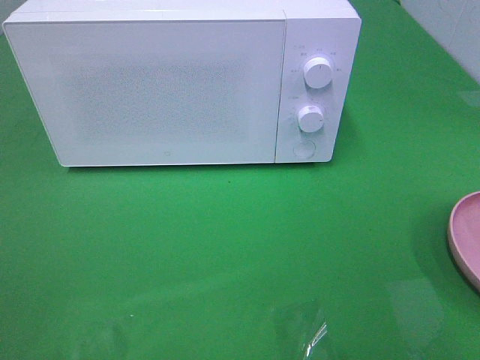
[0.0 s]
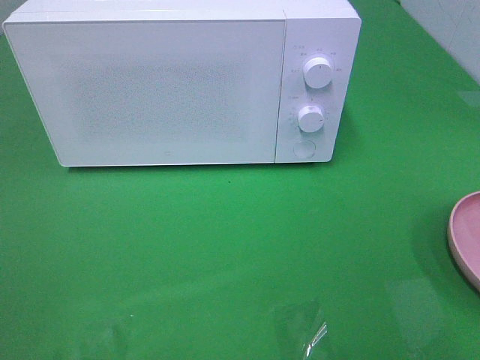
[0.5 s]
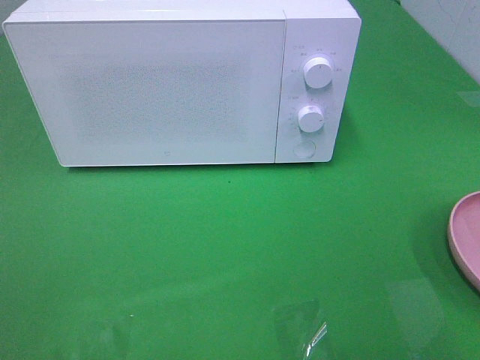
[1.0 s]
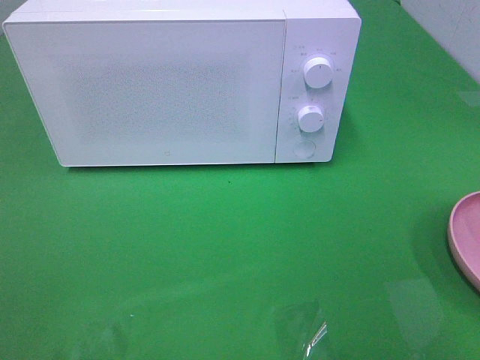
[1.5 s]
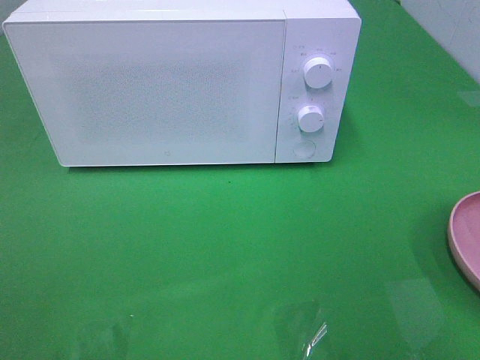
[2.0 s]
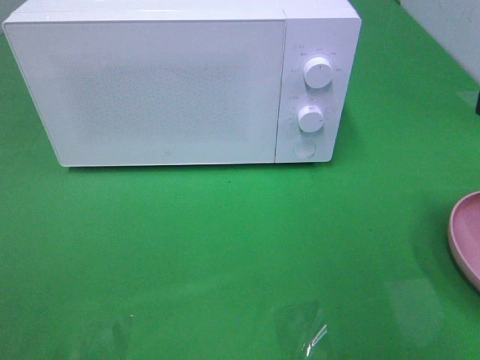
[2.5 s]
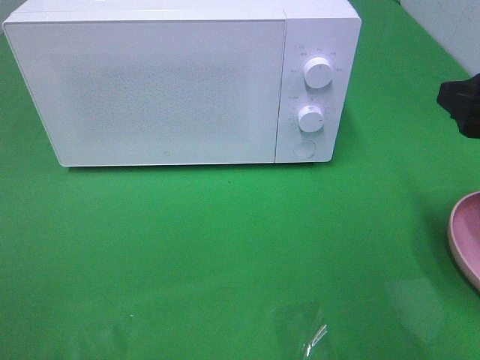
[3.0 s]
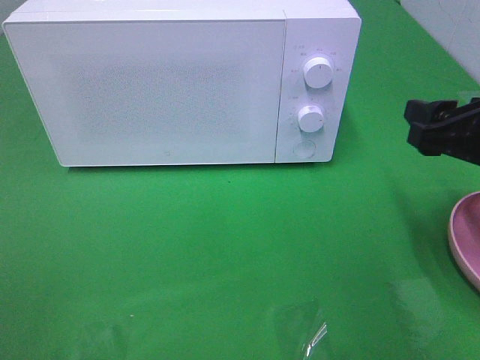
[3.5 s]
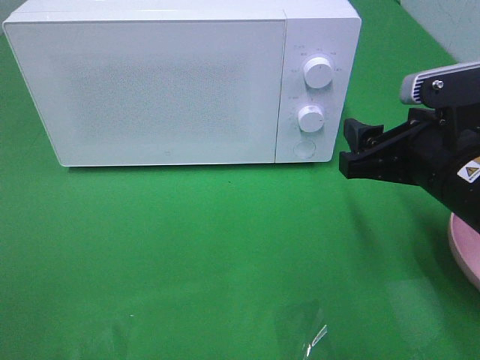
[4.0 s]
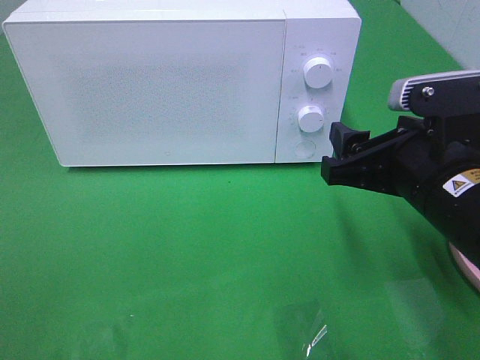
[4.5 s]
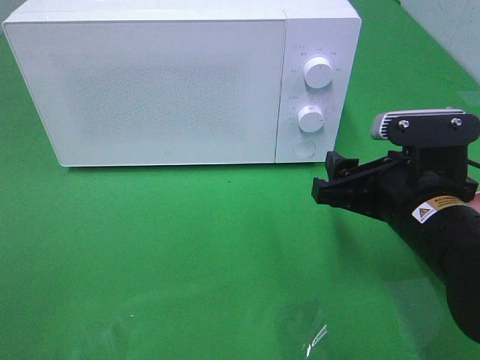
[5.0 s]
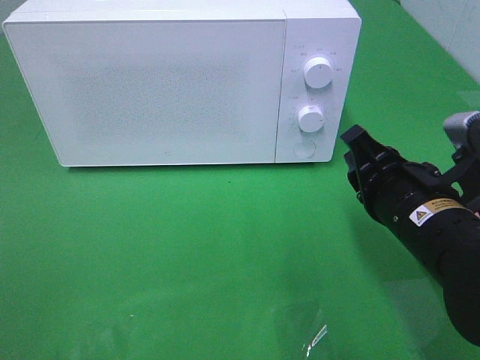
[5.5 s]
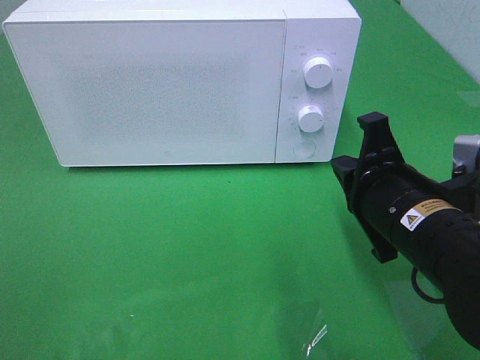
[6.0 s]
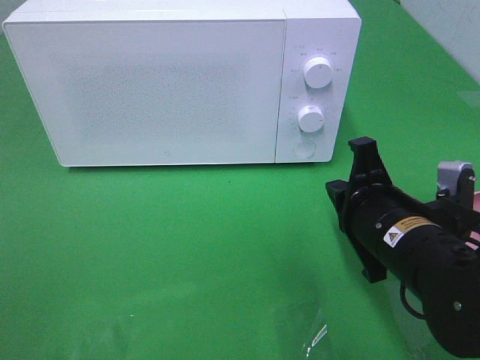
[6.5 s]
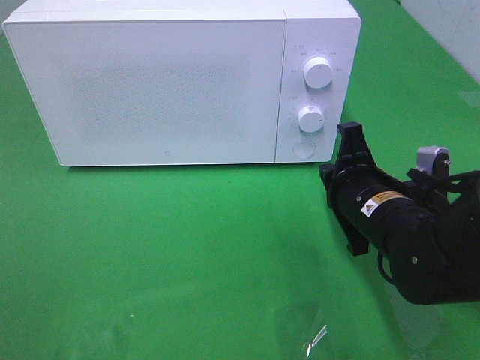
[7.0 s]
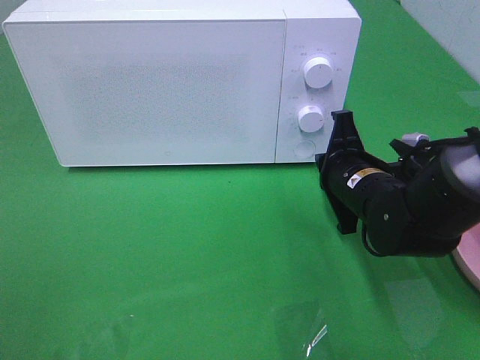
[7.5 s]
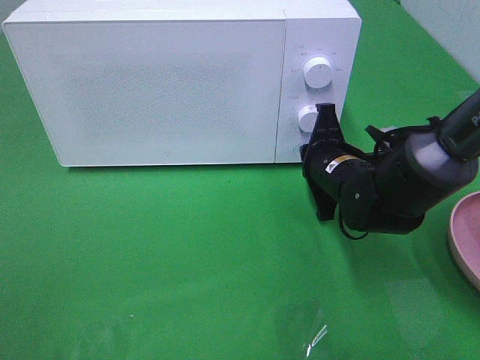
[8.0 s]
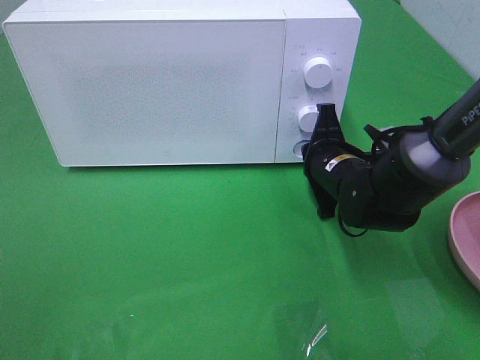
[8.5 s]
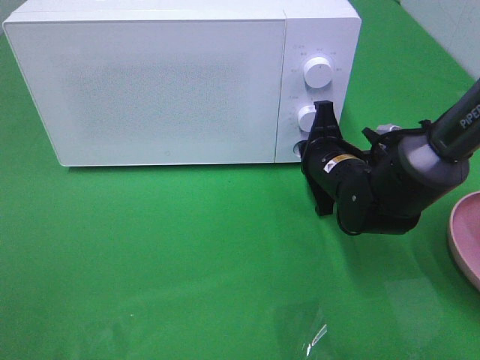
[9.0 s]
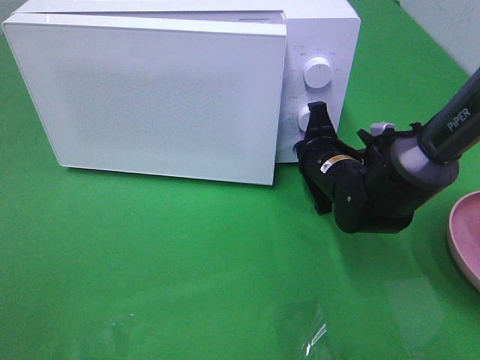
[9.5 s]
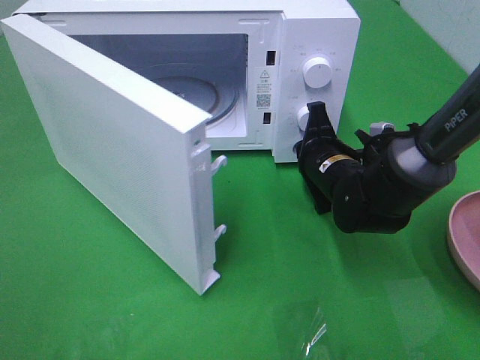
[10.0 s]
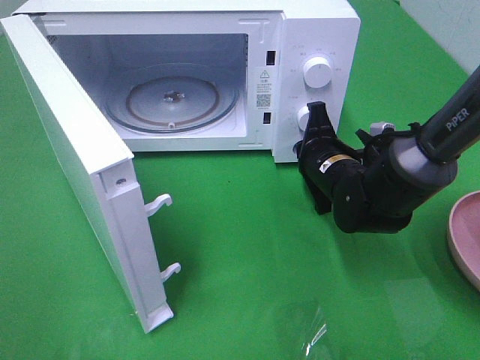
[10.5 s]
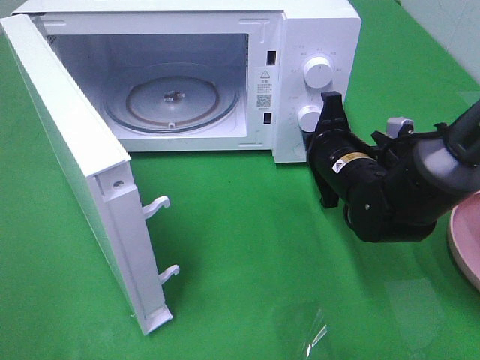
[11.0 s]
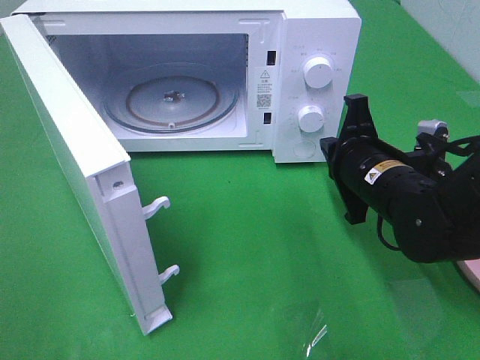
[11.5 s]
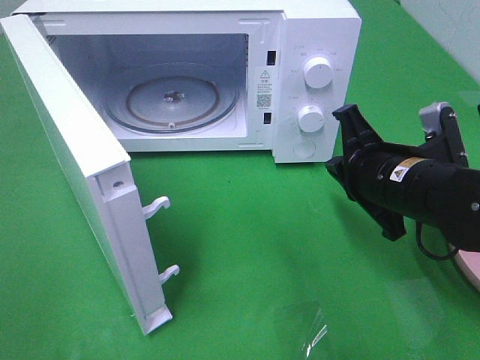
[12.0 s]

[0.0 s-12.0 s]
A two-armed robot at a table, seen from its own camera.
Task of the whole recording: Heat the burger.
Step, 0.0 to 11.0 s: Right hand: press the switch.
2.0 to 4.0 s: The right gripper heads downward, forward and to the left, covering approximately 20 cm.
4.0 to 6.0 s: The right gripper changes place by approximately 5 cm, and closes its fingers.
6.0 to 8.0 s: The right gripper goes some 15 cm forward and downward.
10.0 to 12.0 s: The right gripper goes some 10 cm backward and upward.

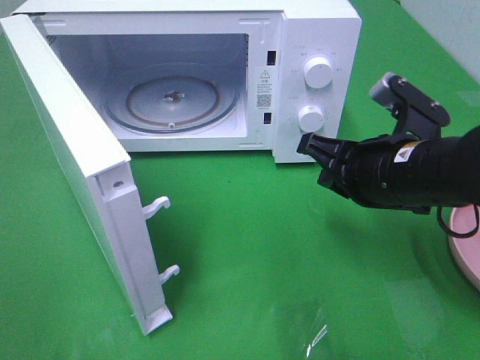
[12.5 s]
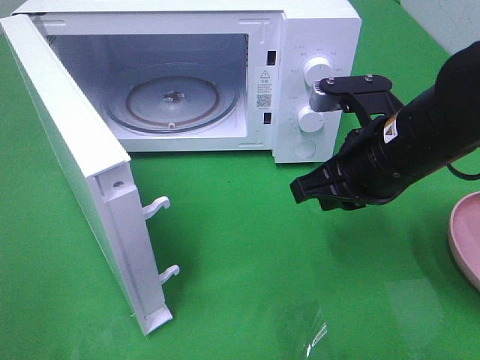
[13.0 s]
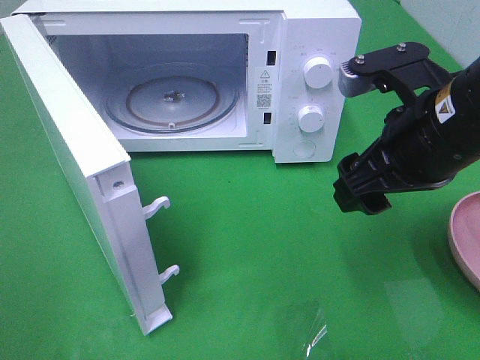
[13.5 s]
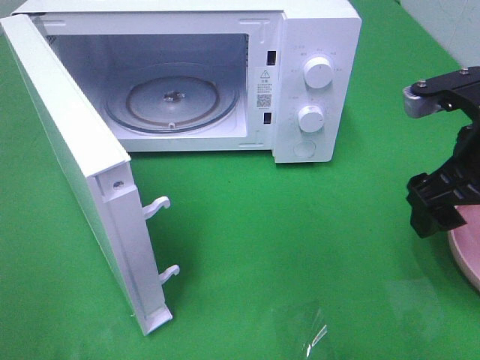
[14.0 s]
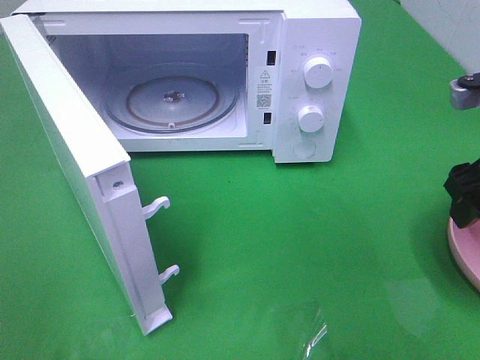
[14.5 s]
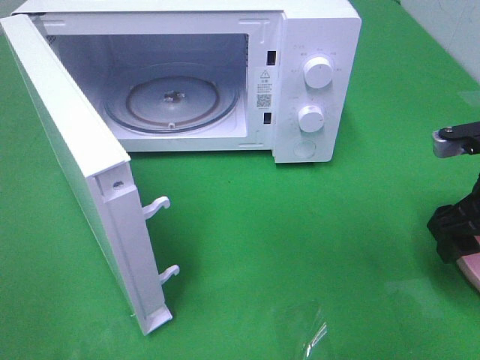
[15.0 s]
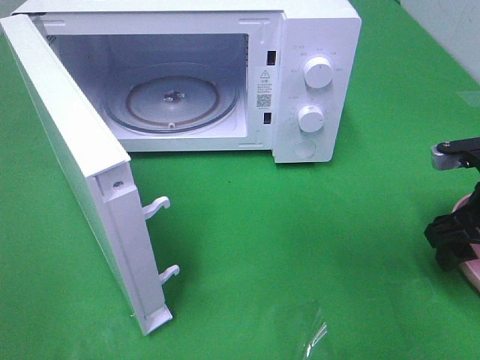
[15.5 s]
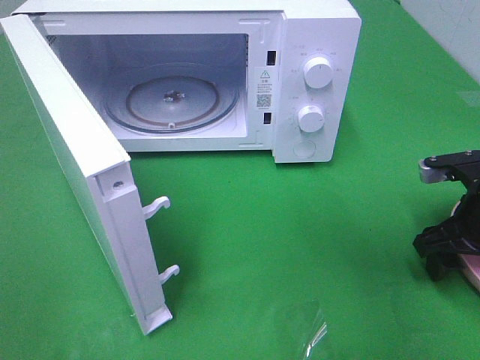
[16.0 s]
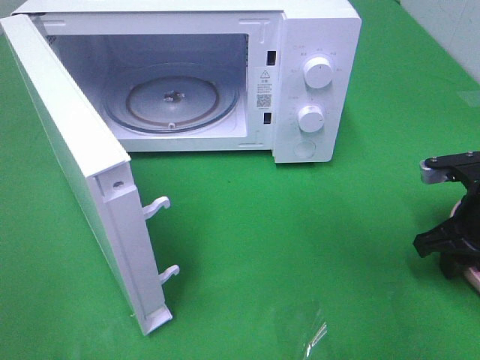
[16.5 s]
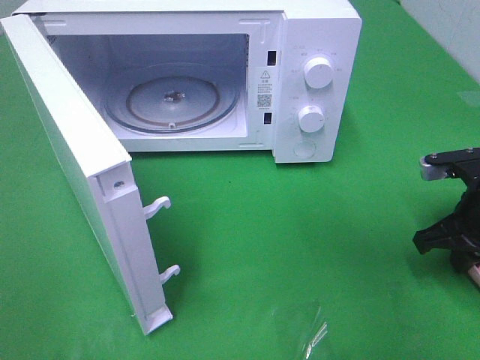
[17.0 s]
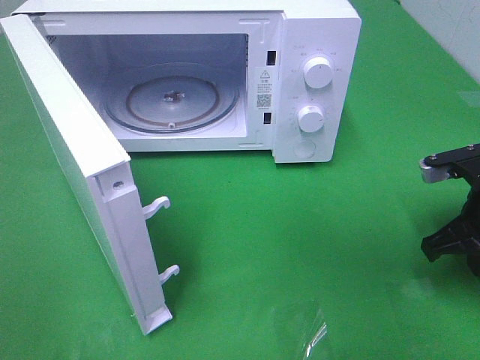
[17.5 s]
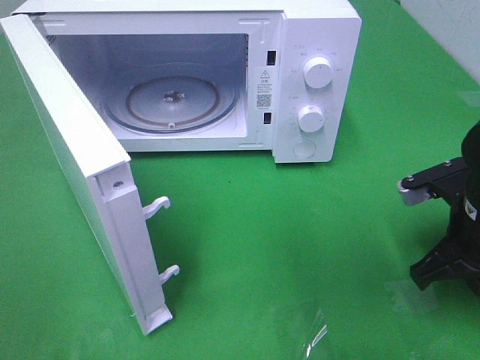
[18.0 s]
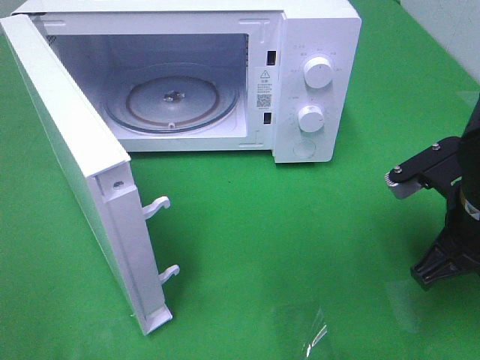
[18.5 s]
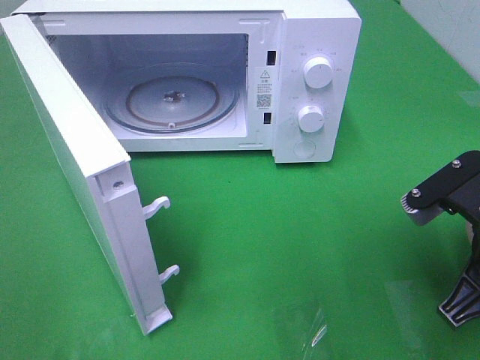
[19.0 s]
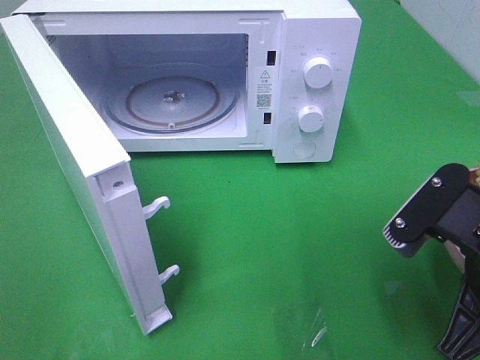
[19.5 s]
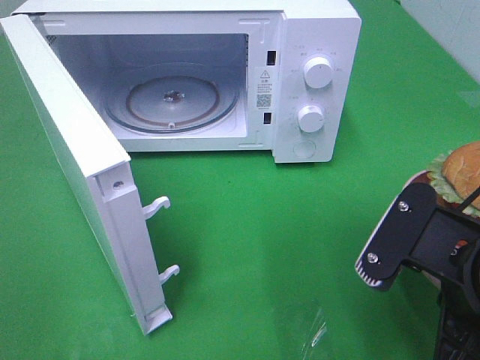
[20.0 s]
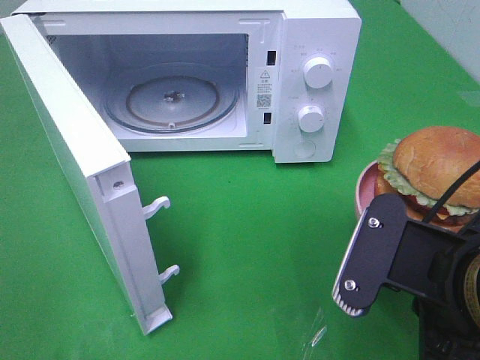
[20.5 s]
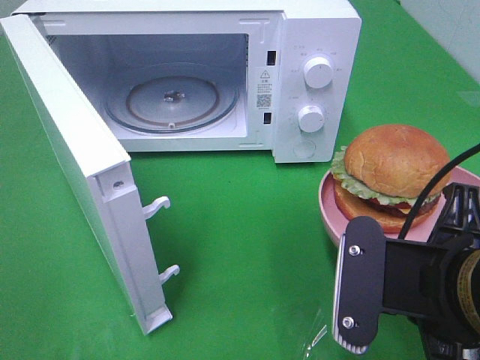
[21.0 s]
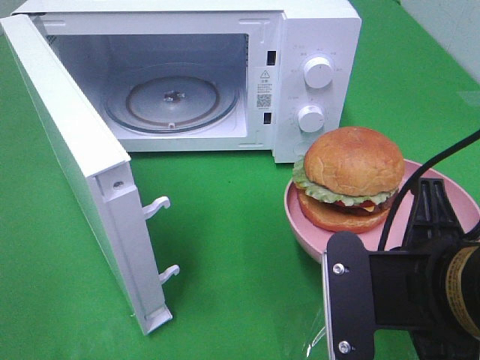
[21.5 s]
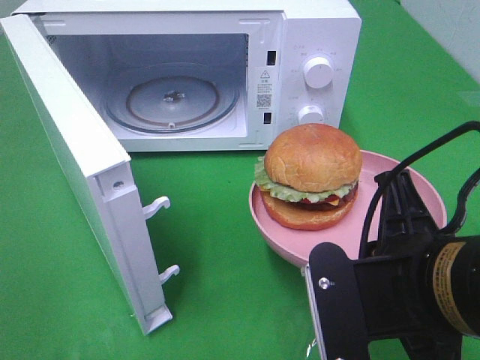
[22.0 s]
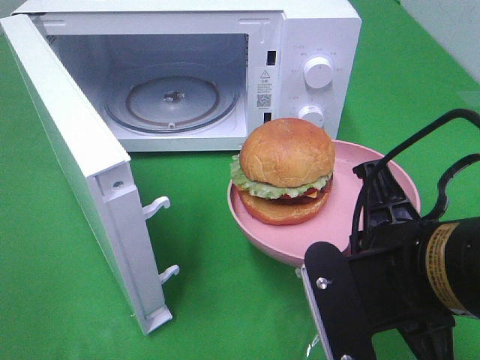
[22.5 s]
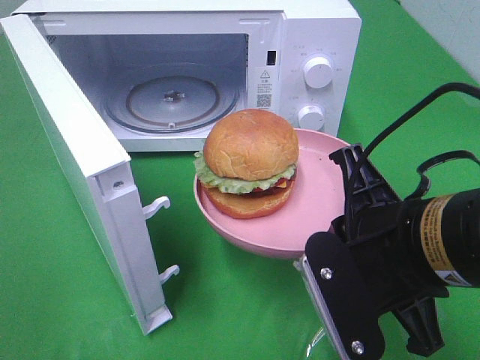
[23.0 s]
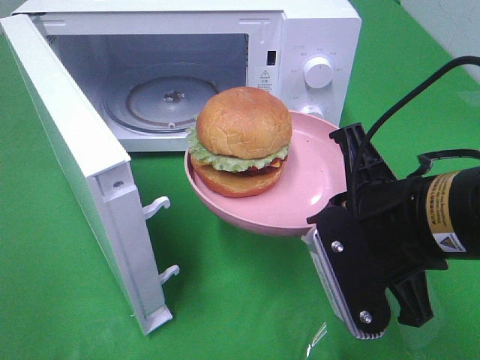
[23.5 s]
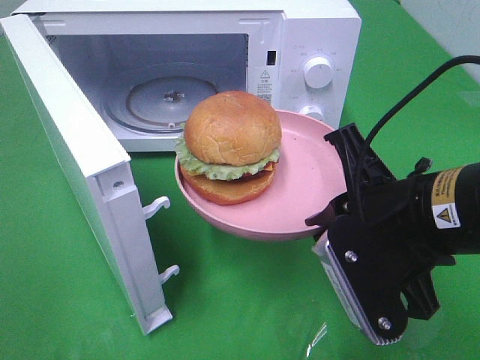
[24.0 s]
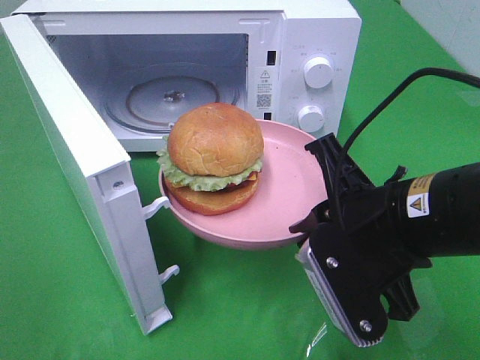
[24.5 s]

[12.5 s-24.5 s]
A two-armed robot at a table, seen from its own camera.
Task of the whole recording: Heat the burger.
Step, 12.5 to 17.5 s: Right hand: grab the plate with the hamburger.
12.5 to 14.5 s: The right gripper goes roughly 10 cm to the right and upward, and opens its fingers.
14.5 to 16.5 s: The right gripper goes some 10 cm downward, and closes up.
16.5 to 18.5 s: The right gripper is displaced to the left, upward and backward by approximately 10 cm, and closes.
18.5 to 20.5 s: The right gripper shifts some 10 cm backward and to the left.
22.5 to 24.5 s: The right gripper shifts approximately 5 cm forward.

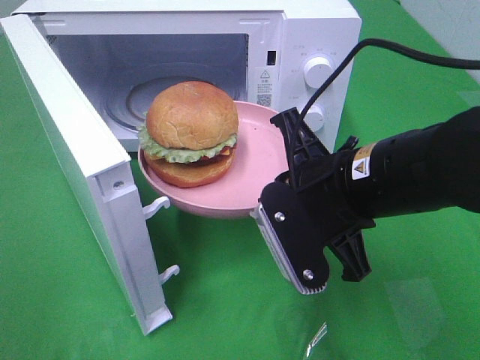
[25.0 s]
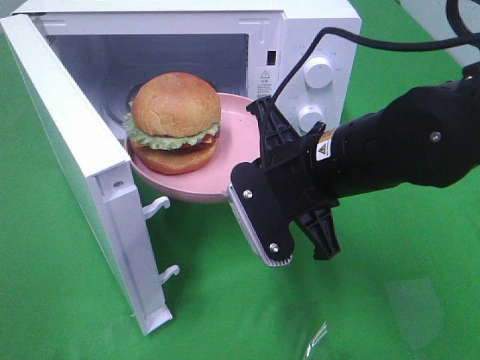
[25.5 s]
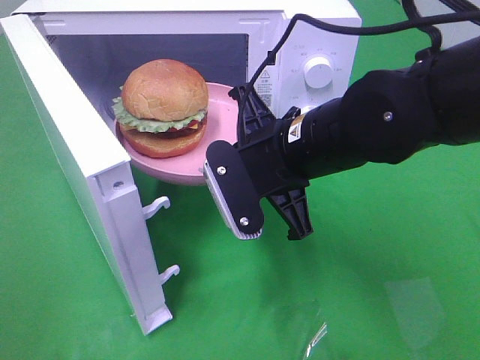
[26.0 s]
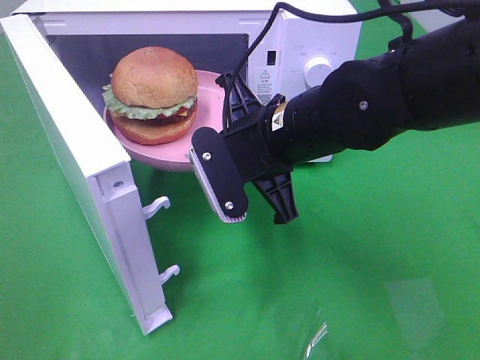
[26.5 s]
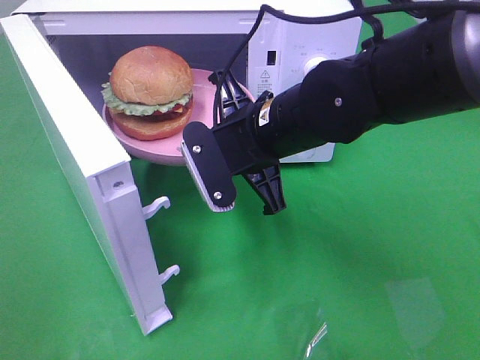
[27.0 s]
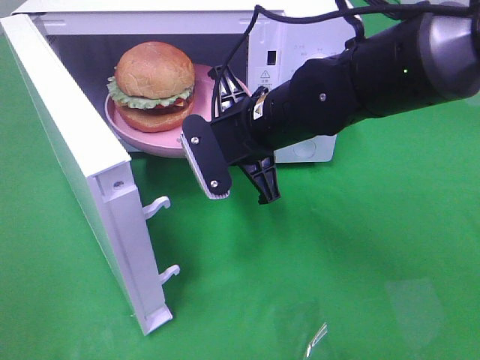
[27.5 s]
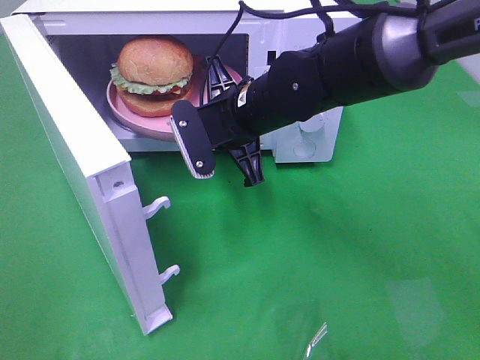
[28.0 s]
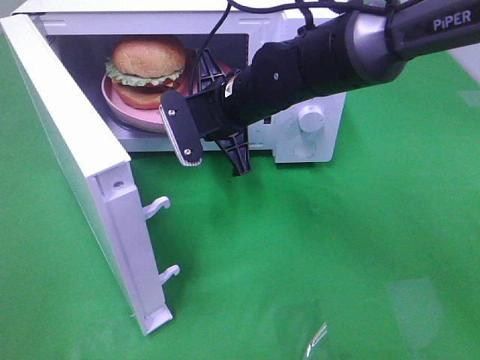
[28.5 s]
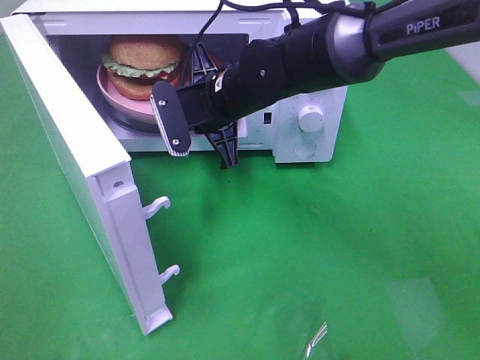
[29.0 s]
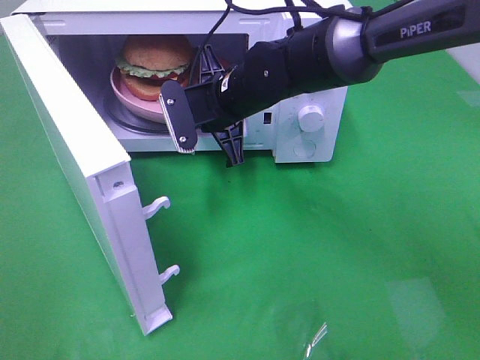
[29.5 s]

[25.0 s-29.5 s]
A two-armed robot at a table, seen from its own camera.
Task of the whole recording: Heat the burger.
25.0 to 27.0 s: The right gripper is displaced forward and to the left by some 10 cm.
27.0 to 29.5 s: The right gripper goes about 10 cm forward.
